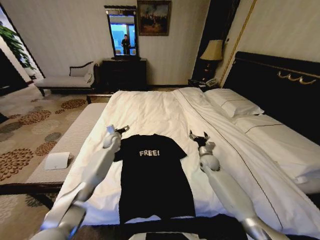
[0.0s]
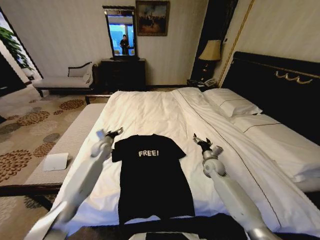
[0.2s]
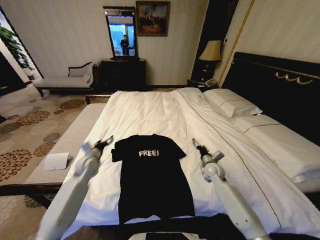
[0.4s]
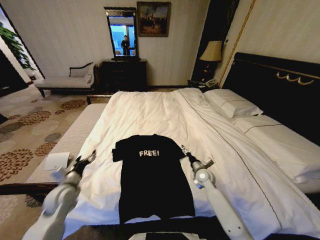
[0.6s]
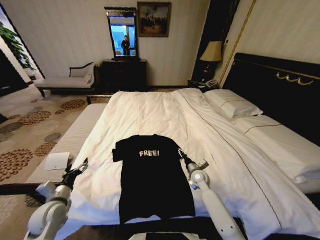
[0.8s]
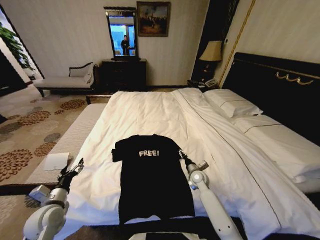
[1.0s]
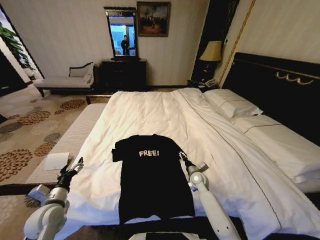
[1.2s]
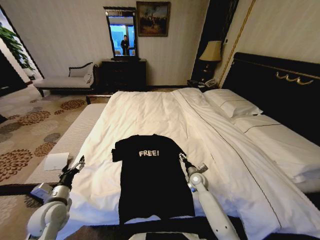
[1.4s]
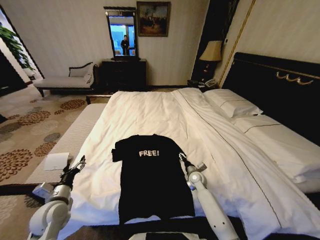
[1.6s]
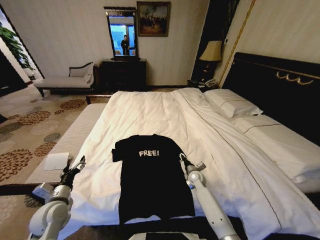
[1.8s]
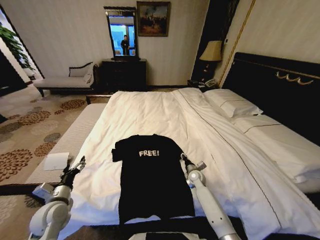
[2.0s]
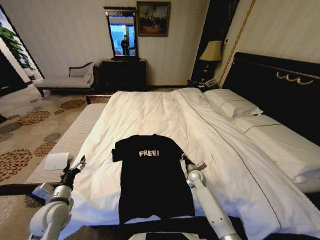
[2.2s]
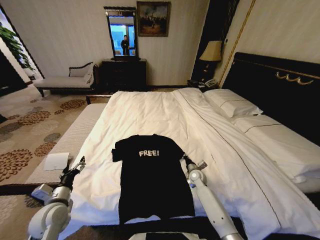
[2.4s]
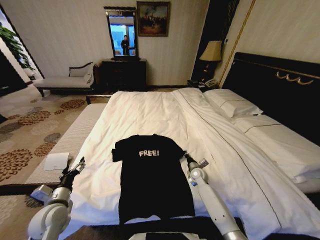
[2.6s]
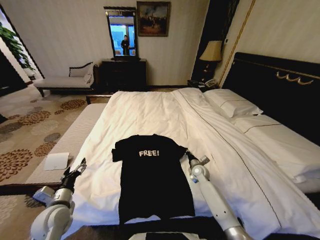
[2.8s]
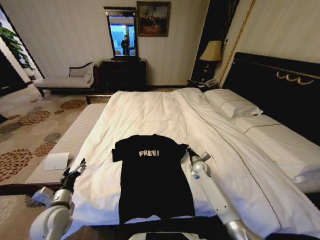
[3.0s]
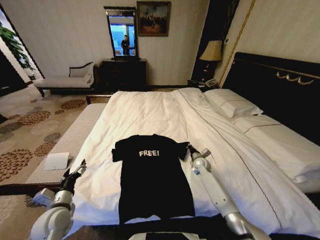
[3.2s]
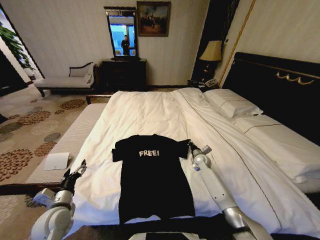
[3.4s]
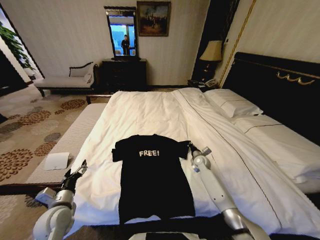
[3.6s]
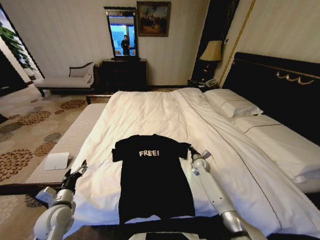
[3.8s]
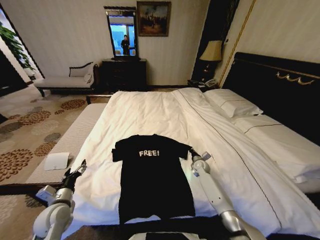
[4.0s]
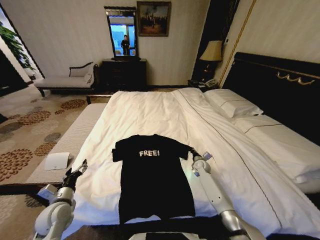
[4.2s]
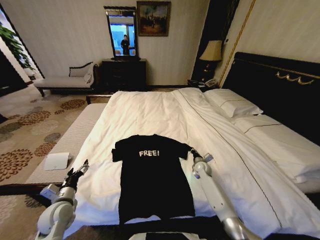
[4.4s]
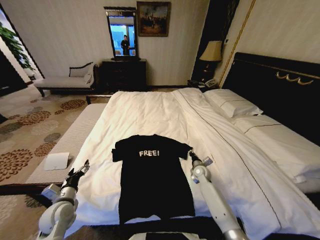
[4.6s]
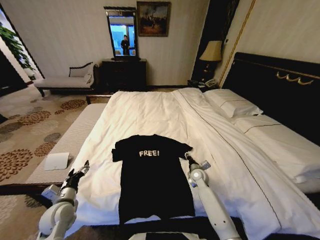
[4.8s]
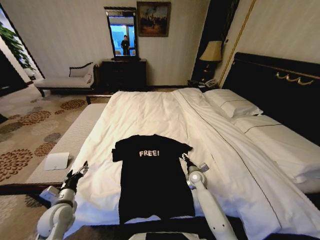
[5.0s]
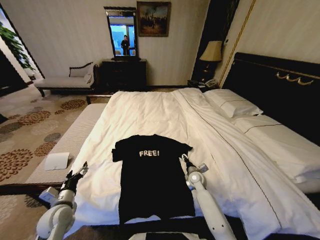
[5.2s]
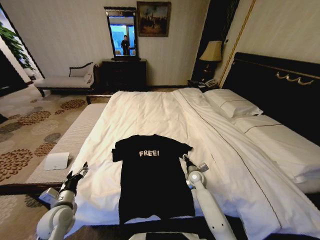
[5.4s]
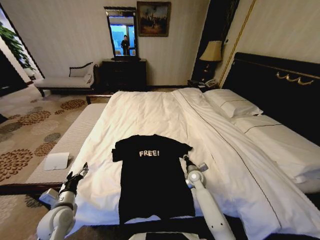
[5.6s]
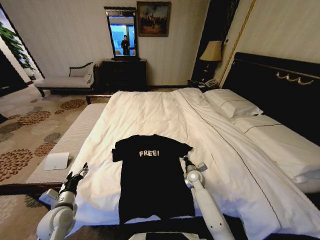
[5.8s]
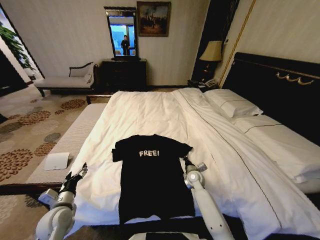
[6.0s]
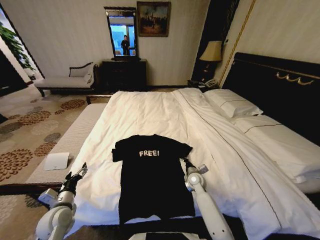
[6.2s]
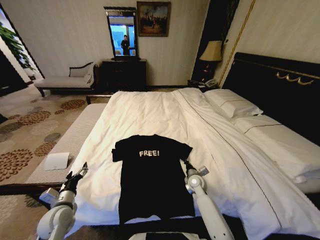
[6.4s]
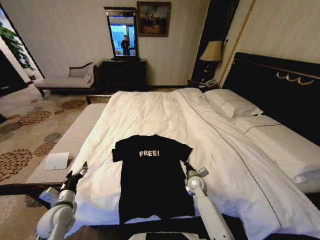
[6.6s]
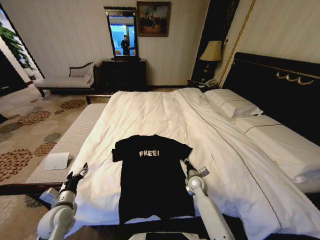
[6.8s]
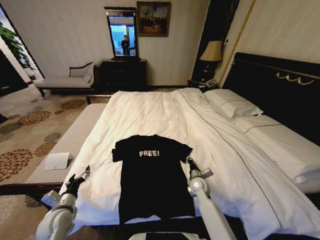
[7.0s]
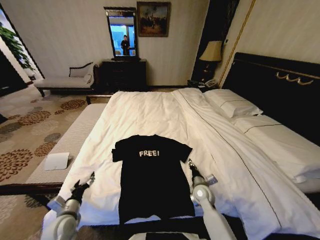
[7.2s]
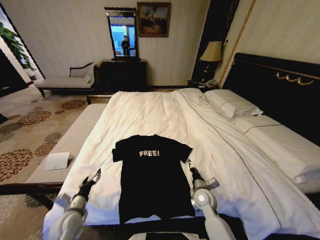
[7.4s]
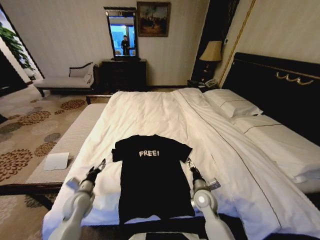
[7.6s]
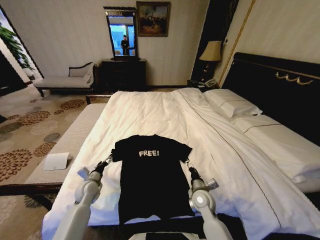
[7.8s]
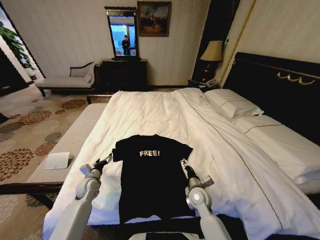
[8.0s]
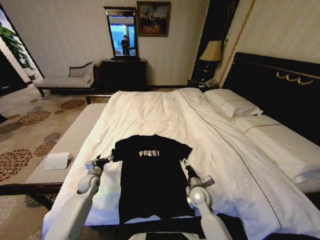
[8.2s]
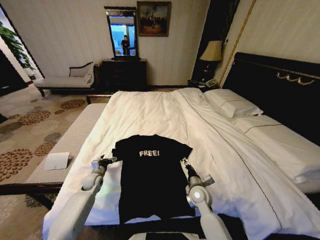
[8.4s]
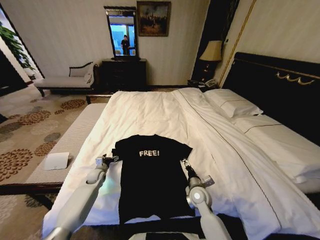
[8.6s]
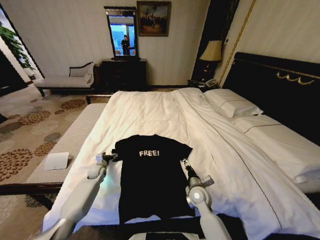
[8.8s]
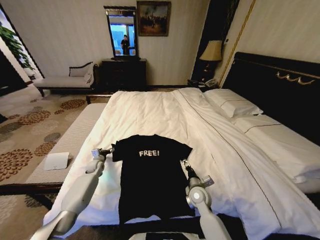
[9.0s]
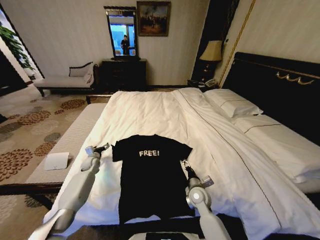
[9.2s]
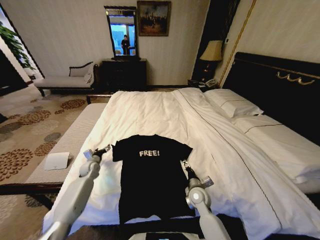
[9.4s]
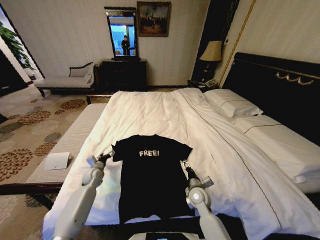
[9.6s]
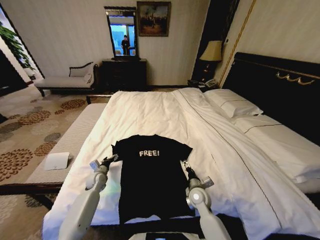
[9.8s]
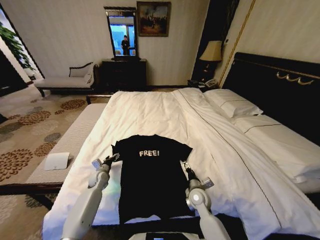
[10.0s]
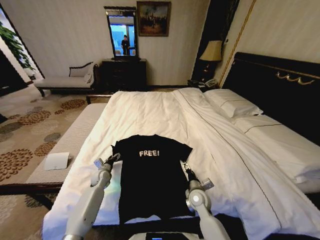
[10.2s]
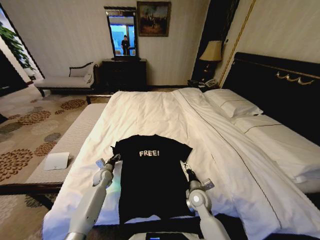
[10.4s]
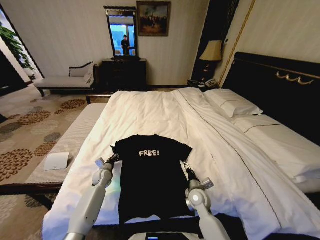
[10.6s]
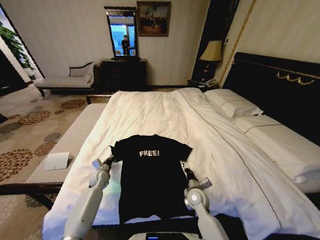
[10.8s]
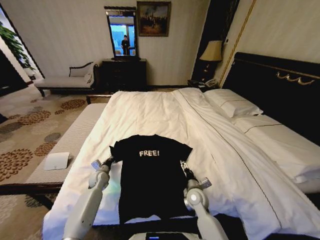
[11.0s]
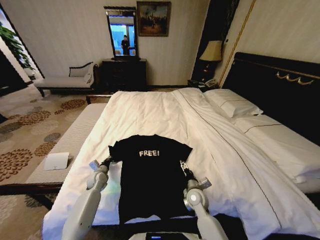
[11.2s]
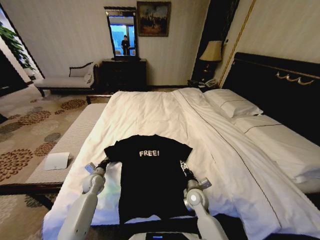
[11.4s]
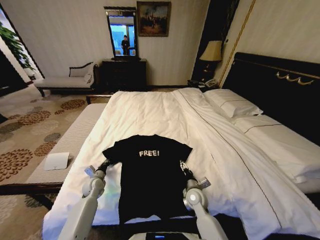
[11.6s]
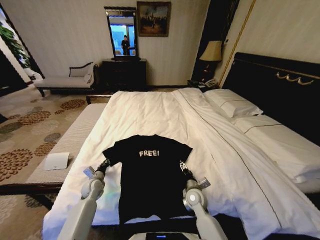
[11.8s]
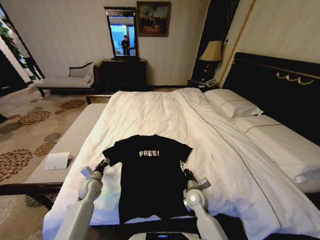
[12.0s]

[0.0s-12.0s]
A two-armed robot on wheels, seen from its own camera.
Task of the whole recording: Fold the clothes on the bed.
0.0s to 1.6s: The right gripper goes approximately 10 cm downward, backward and to the left, while the left gripper heads backward, covering approximately 35 cm.
1.6s to 3.0s: The right gripper goes about 5 cm forward, and closes up.
3.0s to 4.4s: The grippers move only a little.
4.4s to 6.0s: The right gripper travels to the left and backward by roughly 10 cm, and opens, then closes once more.
6.0s to 7.6s: The left gripper goes some 5 cm forward. The right gripper moves backward, about 10 cm, and opens.
7.6s to 9.0s: The left gripper travels forward by approximately 20 cm.
9.0s to 10.4s: The left gripper is displaced to the right and backward by some 10 cm, and closes.
10.4s to 12.0s: The left gripper is displaced backward by some 5 cm, and closes, then reopens.

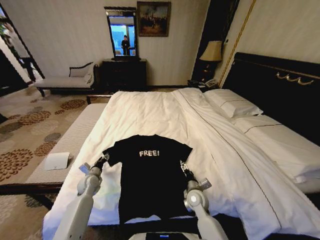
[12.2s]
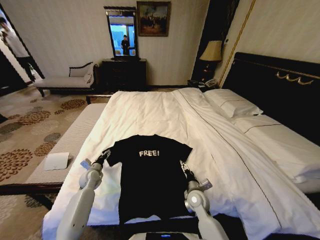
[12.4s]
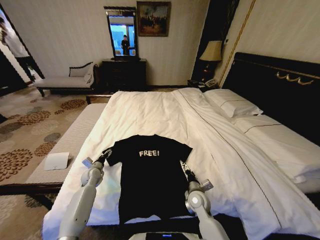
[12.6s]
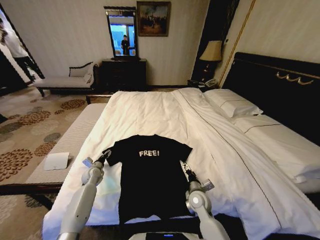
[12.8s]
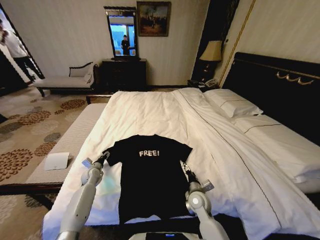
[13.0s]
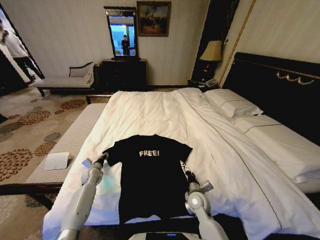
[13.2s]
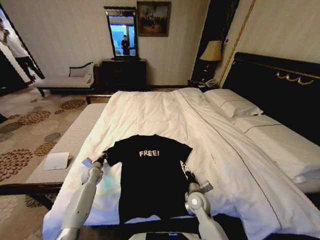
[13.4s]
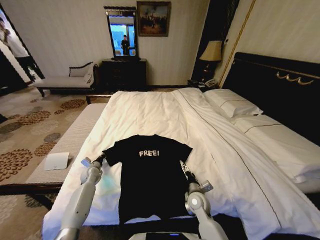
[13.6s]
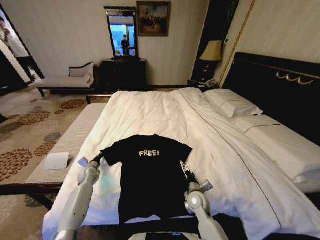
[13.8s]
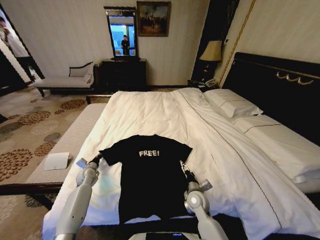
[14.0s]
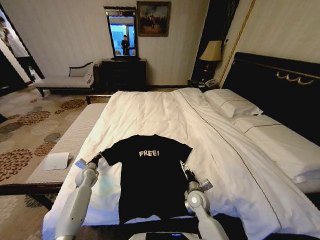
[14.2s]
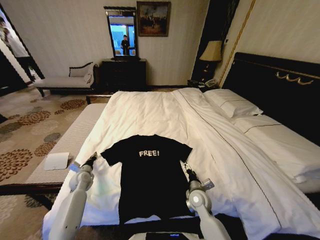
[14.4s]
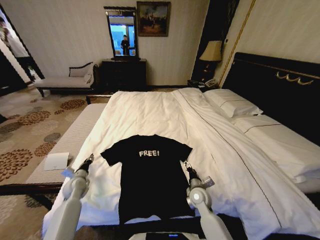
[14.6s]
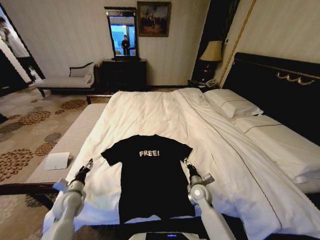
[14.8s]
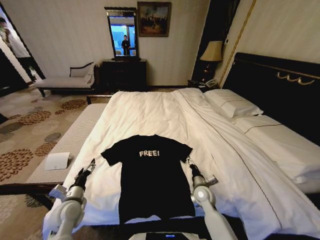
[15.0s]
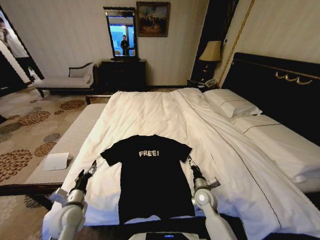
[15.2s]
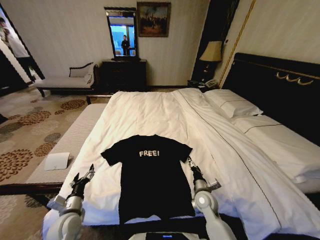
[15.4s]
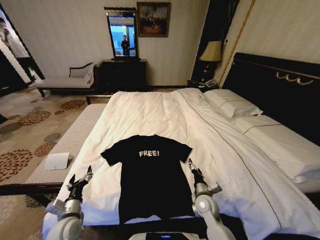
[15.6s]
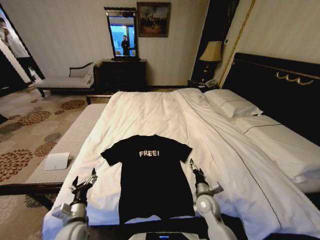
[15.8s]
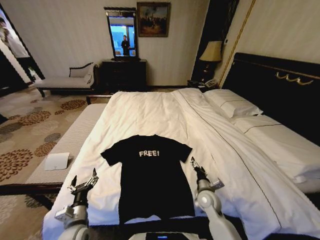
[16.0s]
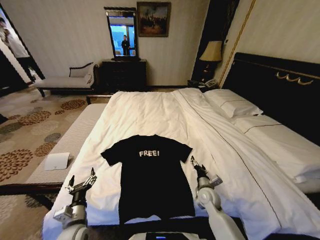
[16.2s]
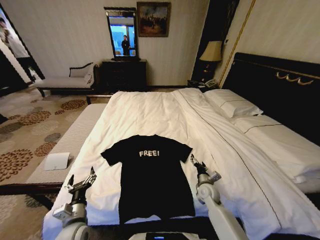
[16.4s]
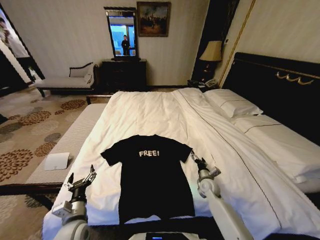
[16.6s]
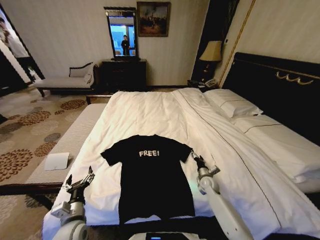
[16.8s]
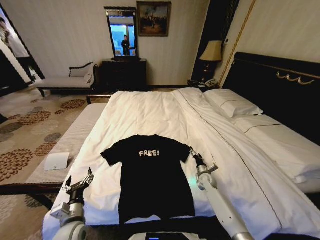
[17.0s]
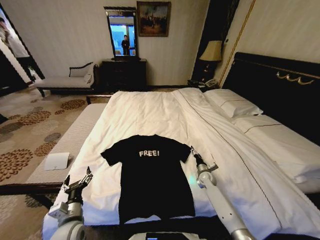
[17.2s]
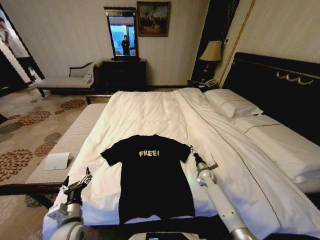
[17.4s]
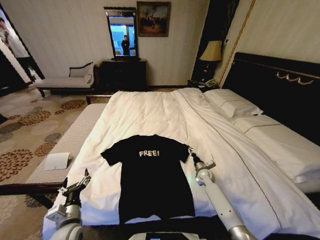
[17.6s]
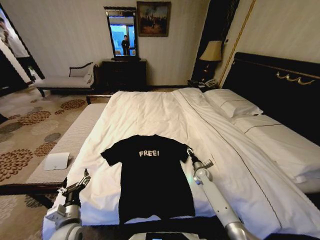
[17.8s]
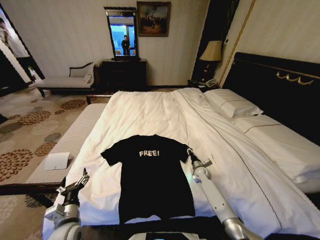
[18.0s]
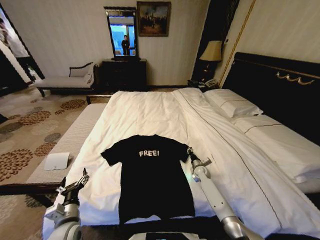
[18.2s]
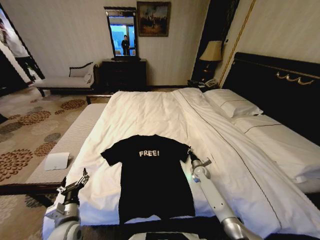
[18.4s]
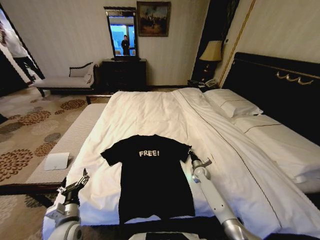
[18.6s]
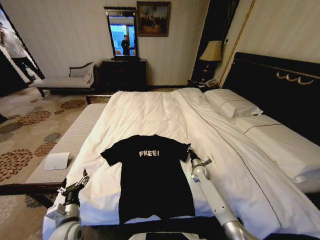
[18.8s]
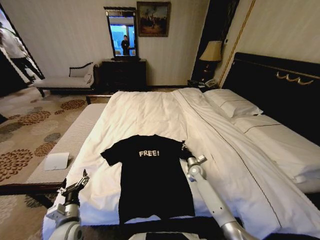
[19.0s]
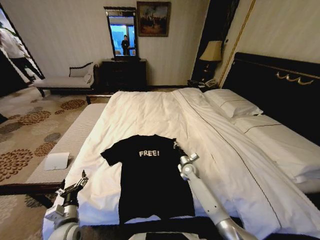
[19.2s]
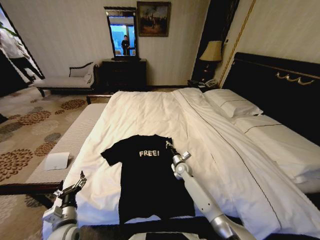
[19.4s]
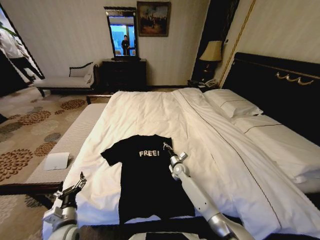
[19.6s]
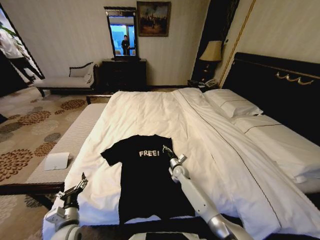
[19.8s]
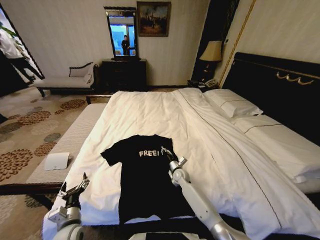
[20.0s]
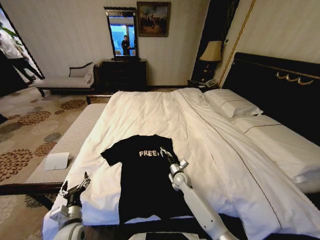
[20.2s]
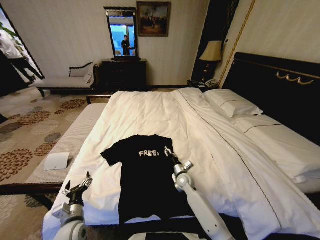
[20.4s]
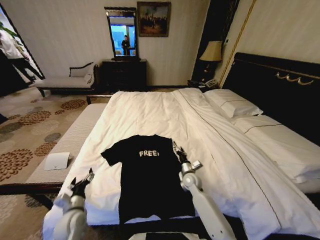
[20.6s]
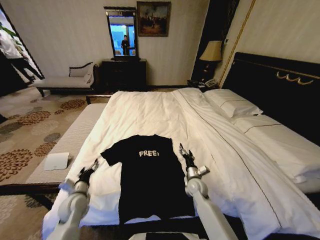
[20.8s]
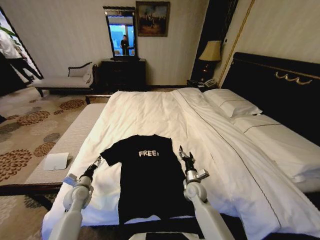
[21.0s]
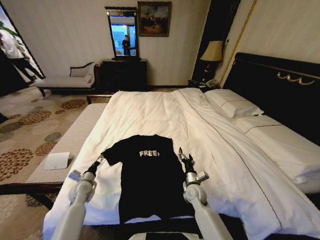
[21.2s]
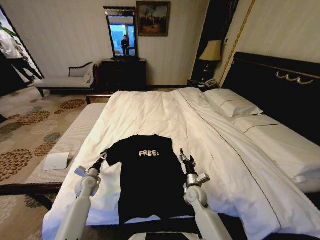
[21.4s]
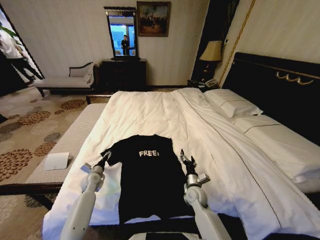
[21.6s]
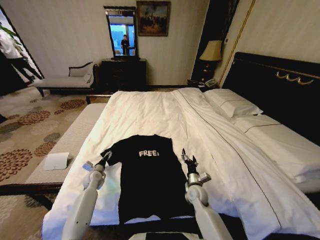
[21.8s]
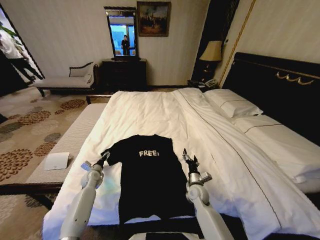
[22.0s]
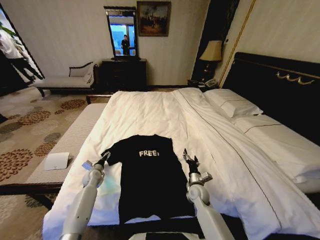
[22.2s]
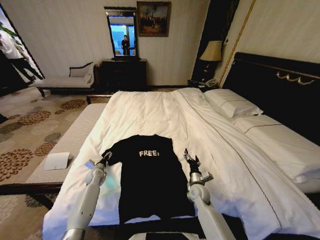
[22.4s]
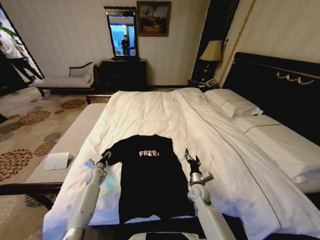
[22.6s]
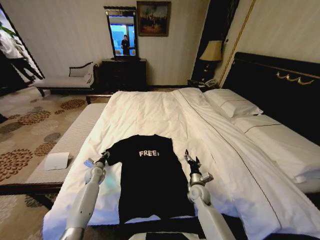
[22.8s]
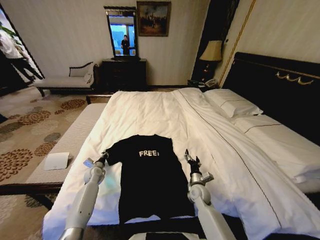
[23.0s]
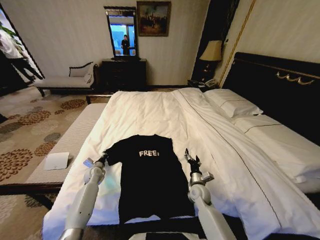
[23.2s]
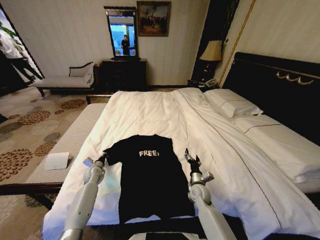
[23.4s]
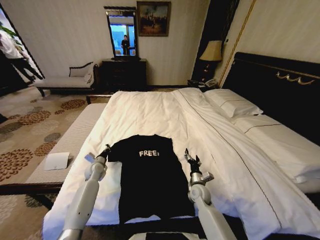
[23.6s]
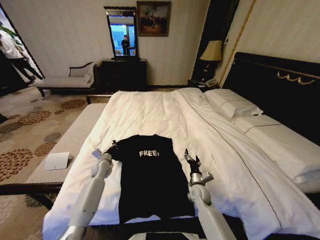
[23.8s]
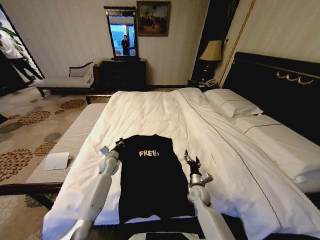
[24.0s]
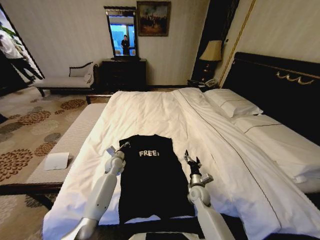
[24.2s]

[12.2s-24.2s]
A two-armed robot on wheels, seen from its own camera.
Task of the whole recording: Fold the clothes on the bed.
12.2s to 13.8s: The left gripper travels forward by approximately 5 cm, and closes its fingers.
13.8s to 15.2s: The left gripper shifts roughly 20 cm backward, and opens its fingers.
15.2s to 16.6s: The right gripper is displaced forward and to the right by approximately 10 cm. The left gripper shifts roughly 5 cm to the right.
16.6s to 18.2s: The right gripper travels forward by roughly 10 cm, and closes up.
18.2s to 19.8s: The right gripper is displaced to the left by some 15 cm.
19.8s to 21.2s: The right gripper is displaced backward by approximately 15 cm, and opens up. The left gripper shifts roughly 15 cm forward.
21.2s to 22.6s: The left gripper is displaced forward by about 10 cm.
22.6s to 24.2s: The left gripper travels to the right and upward by some 15 cm, and closes its fingers.
